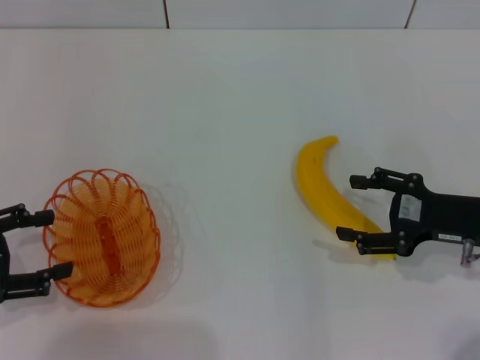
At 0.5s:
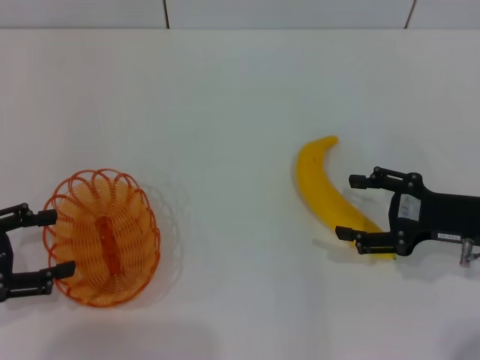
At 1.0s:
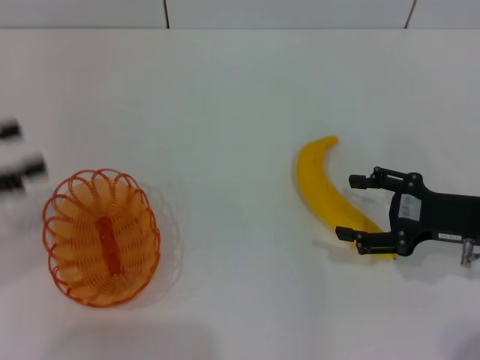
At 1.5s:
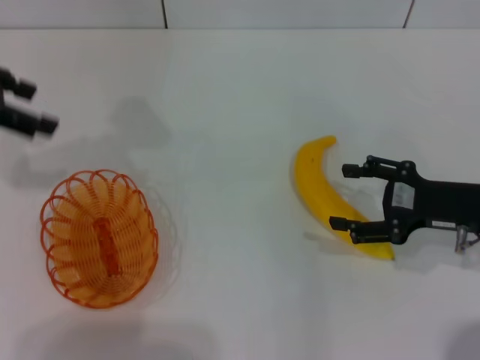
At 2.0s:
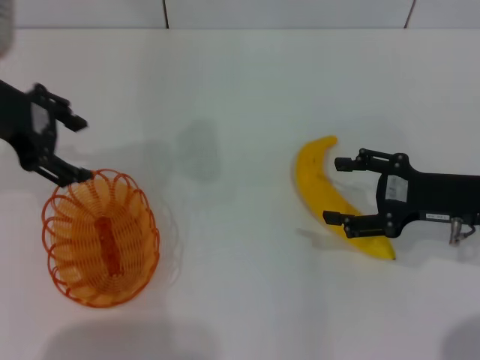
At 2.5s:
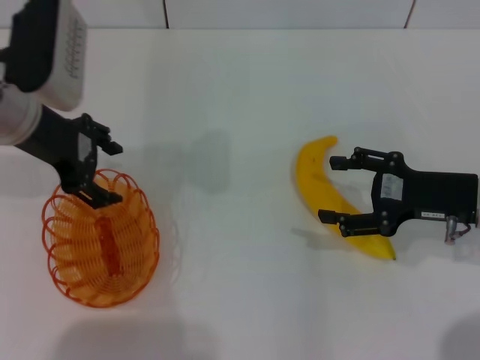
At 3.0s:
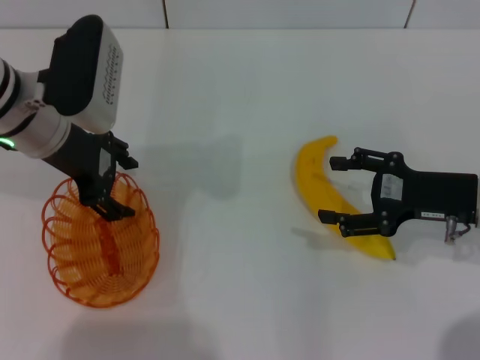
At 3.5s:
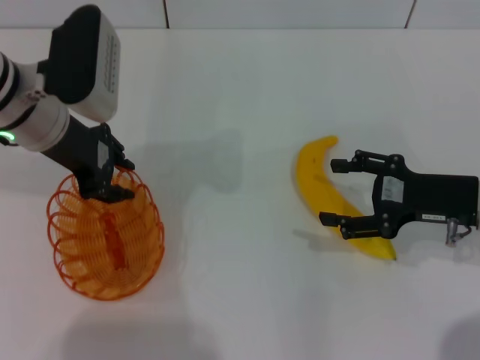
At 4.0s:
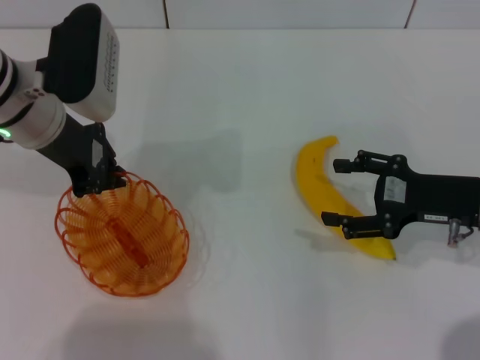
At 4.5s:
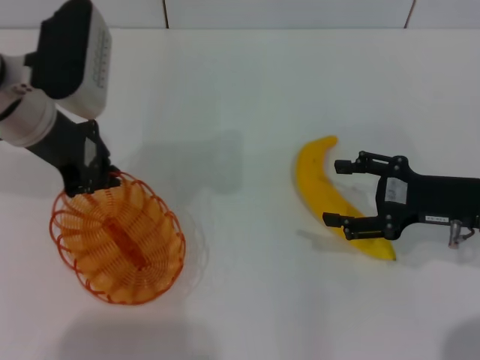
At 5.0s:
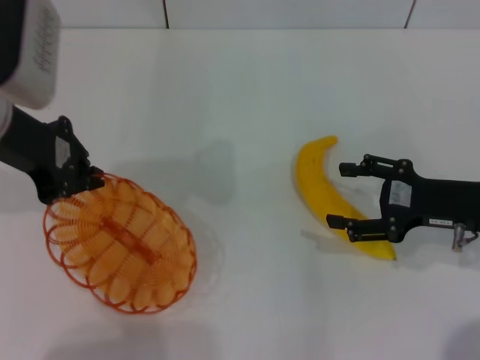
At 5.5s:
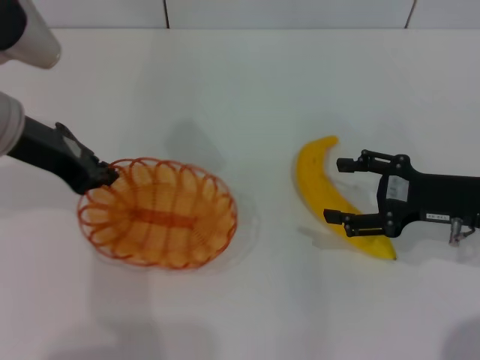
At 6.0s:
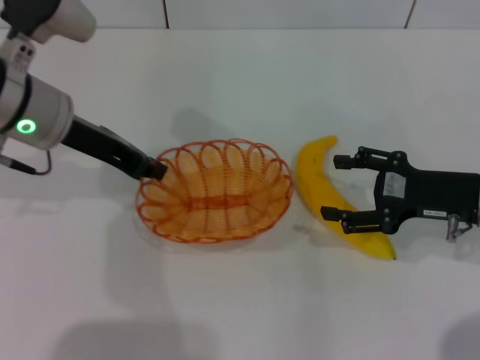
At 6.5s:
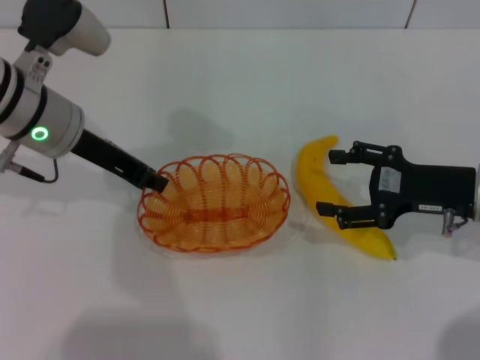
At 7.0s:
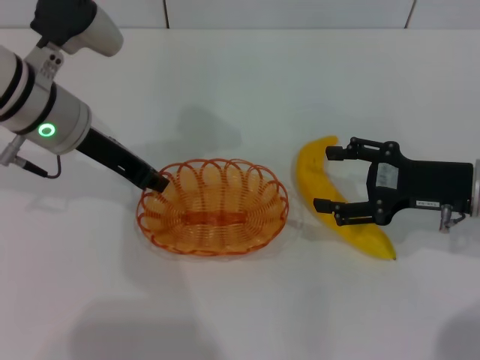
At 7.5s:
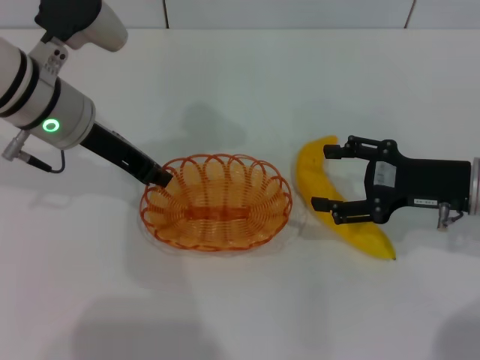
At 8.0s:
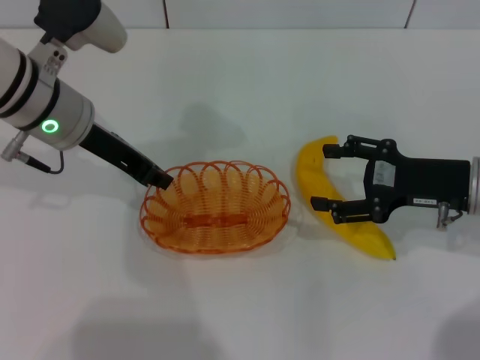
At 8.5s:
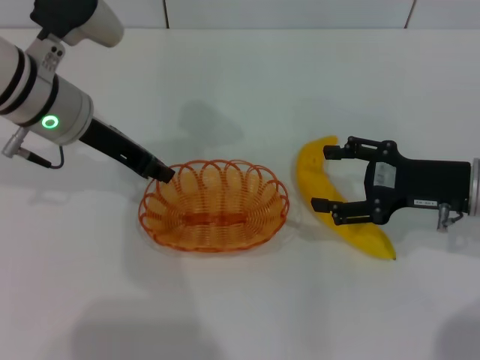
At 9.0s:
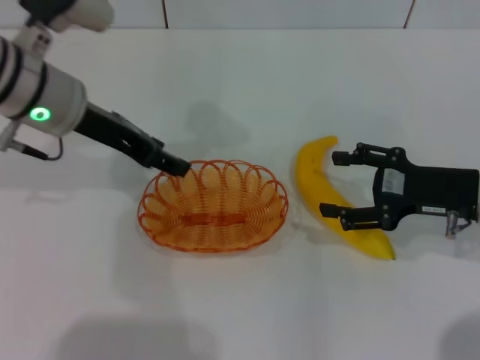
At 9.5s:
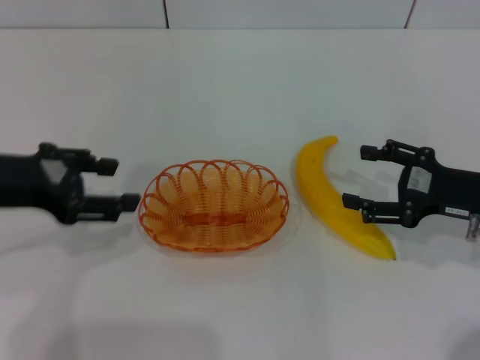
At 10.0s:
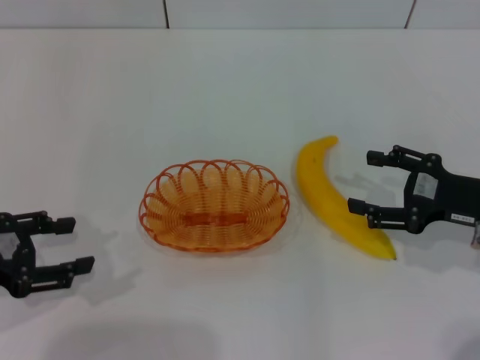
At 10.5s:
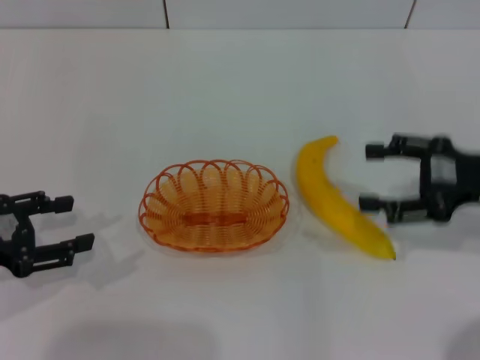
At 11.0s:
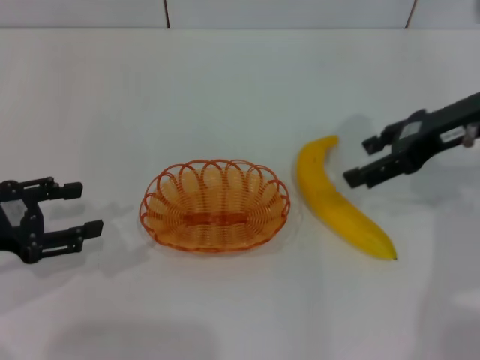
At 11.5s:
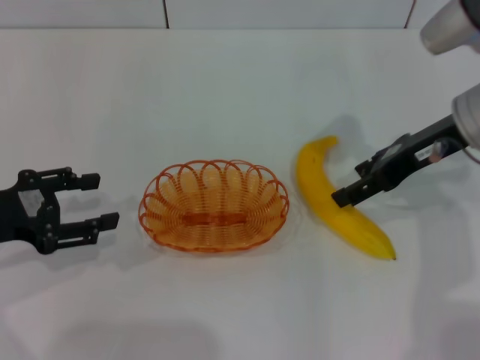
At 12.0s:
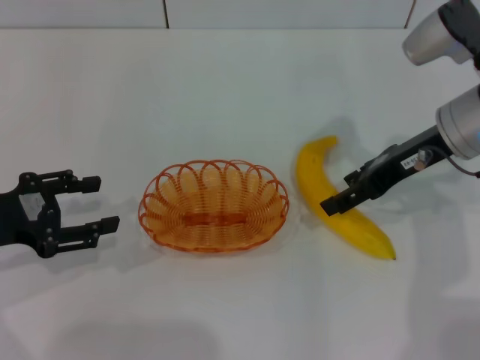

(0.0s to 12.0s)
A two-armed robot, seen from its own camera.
Step, 0.0s - 5.0s: Pick up the basket with the left gripper.
Step, 6.0s - 9.0s: Place the basket in the center of view with the left gripper.
0.0s - 2.0s: The left gripper shifts approximately 20 cm forward, upward and to the right.
2.0s - 4.0s: The left gripper goes about 10 cm downward and to the right, and closes its fingers.
6.0s - 8.0s: The grippers make only small movements.
8.0s - 10.0s: The left gripper moves backward and to the left, approximately 20 cm, and opens up.
10.0s - 12.0s: The right gripper moves forward, upward and to the left, roughly 15 cm.

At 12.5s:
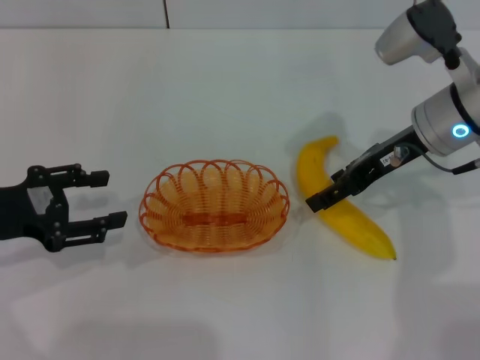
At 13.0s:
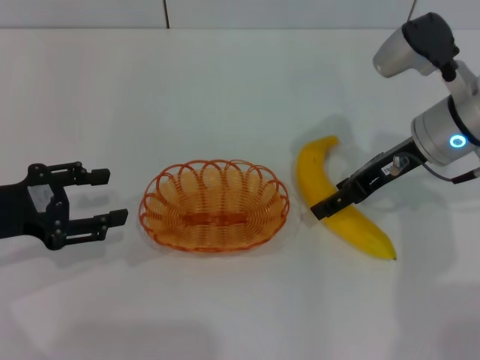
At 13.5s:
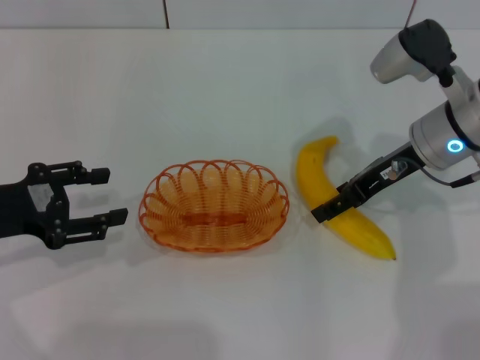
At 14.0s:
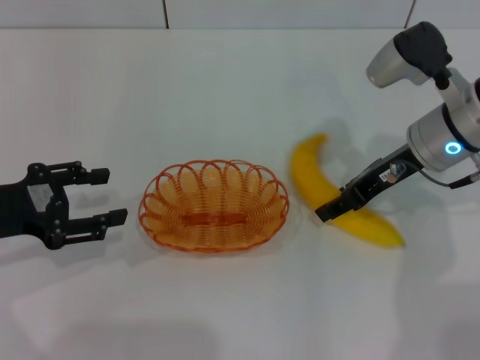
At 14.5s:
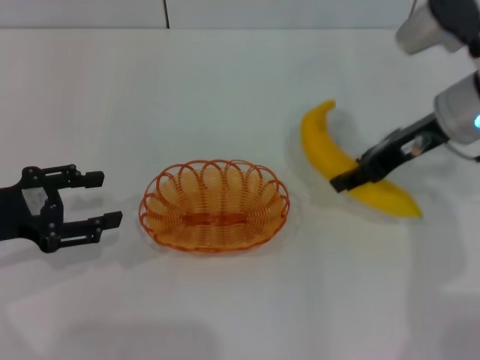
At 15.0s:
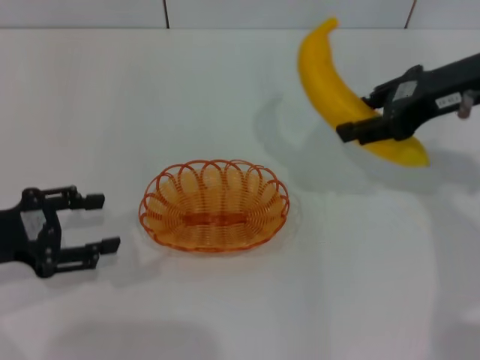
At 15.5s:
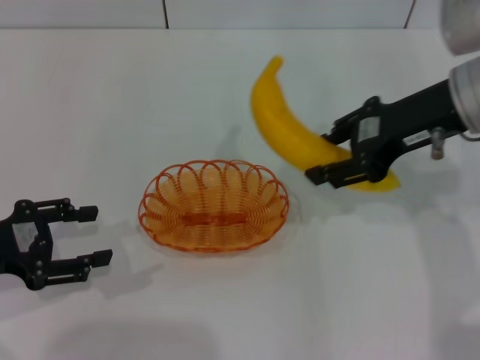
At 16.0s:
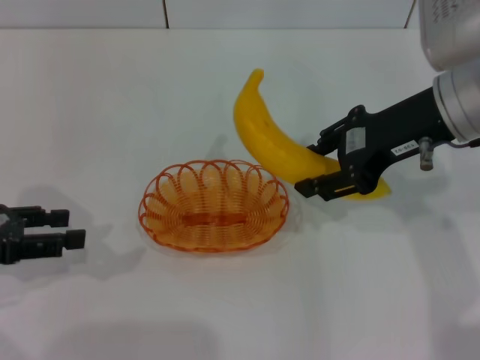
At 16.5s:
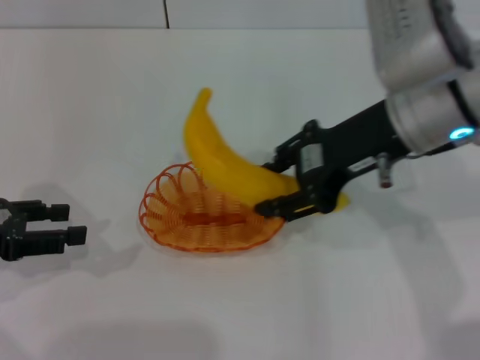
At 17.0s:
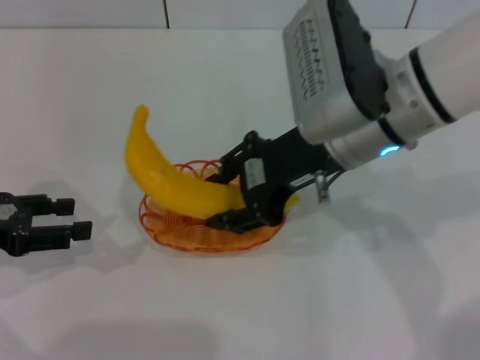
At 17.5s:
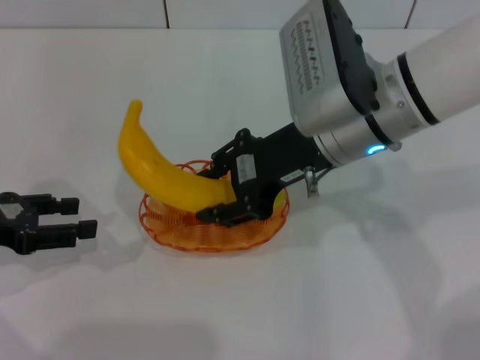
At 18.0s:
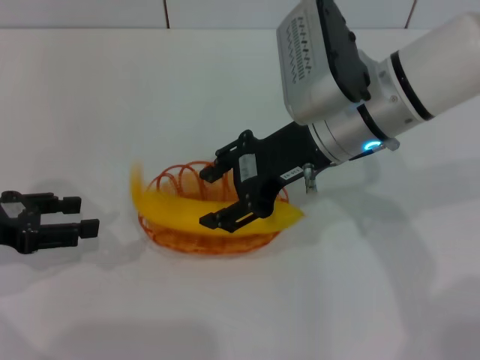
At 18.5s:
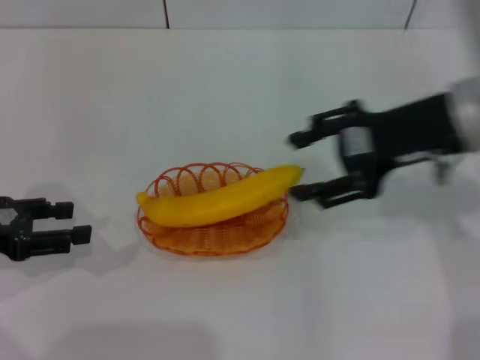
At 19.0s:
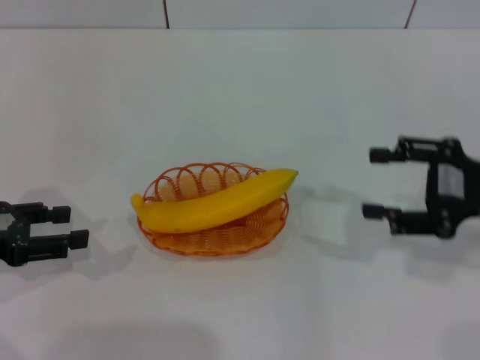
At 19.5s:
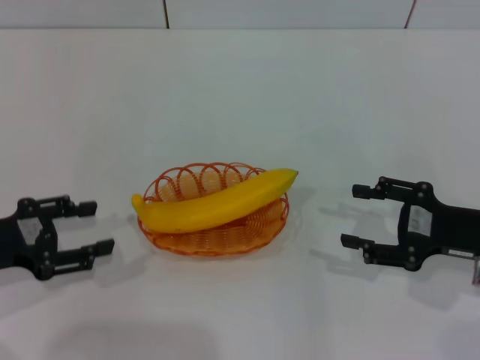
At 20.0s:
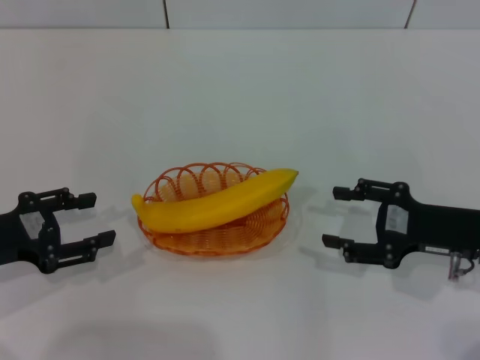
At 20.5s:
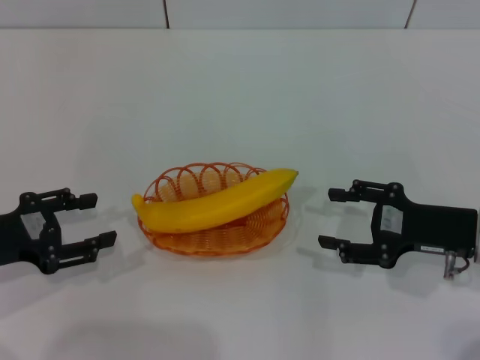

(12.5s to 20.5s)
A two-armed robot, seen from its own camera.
Step, 12.5s - 14.5s: Pick up the banana with the right gripper.
Step, 15.0s - 18.0s: Place the banana into the basket with the right gripper.
12.5s - 14.5s: The right gripper closes up.
14.5s - 16.5s: The right gripper moves to the left and upward, roughly 10 cm.
16.5s - 18.5s: The right gripper opens its fingers.
18.5s - 20.5s: The right gripper shifts approximately 15 cm downward and to the right.

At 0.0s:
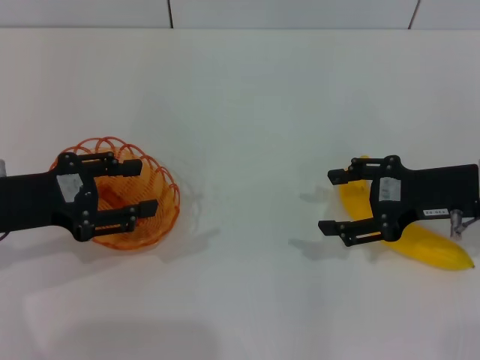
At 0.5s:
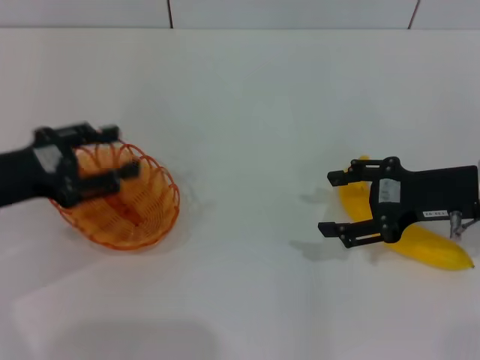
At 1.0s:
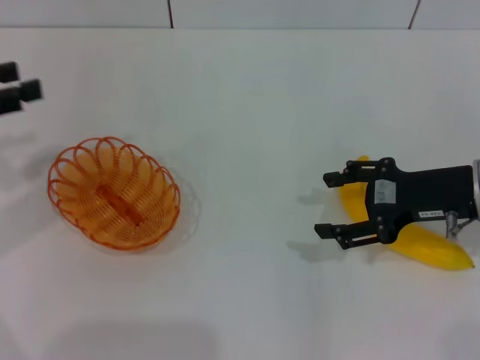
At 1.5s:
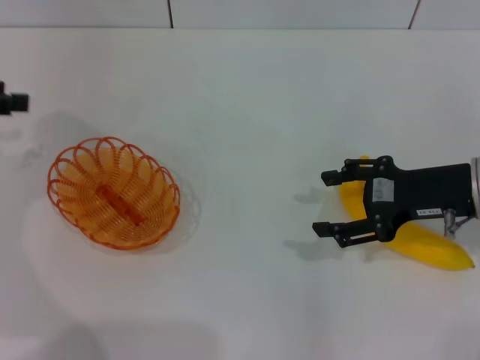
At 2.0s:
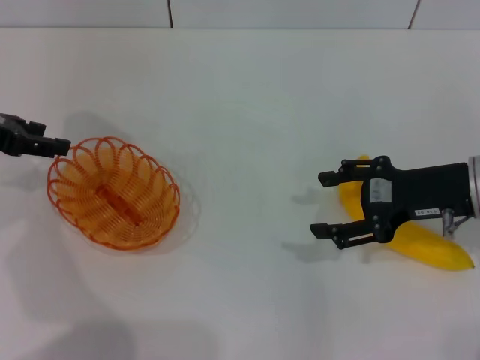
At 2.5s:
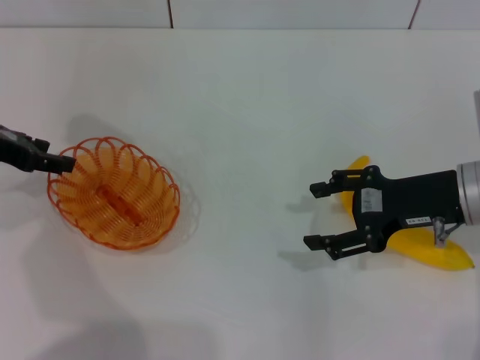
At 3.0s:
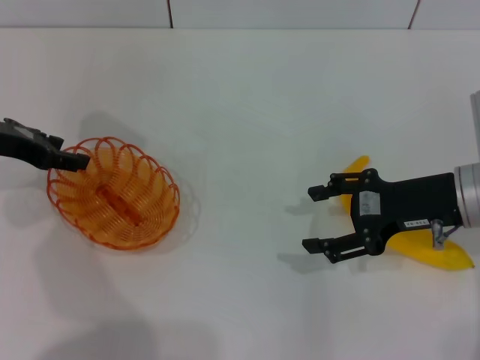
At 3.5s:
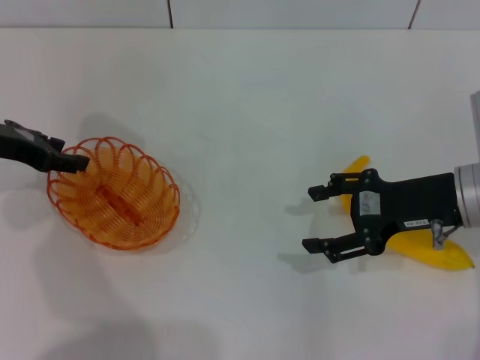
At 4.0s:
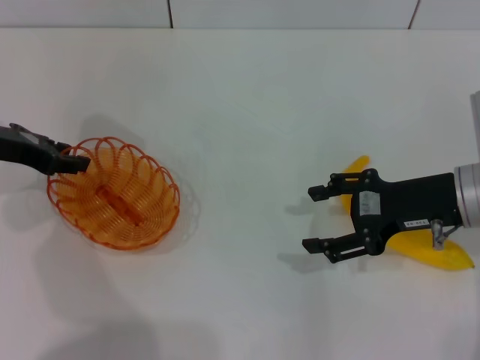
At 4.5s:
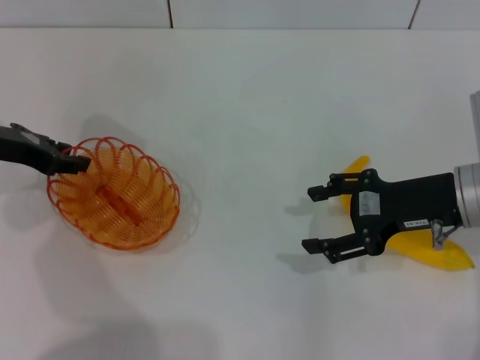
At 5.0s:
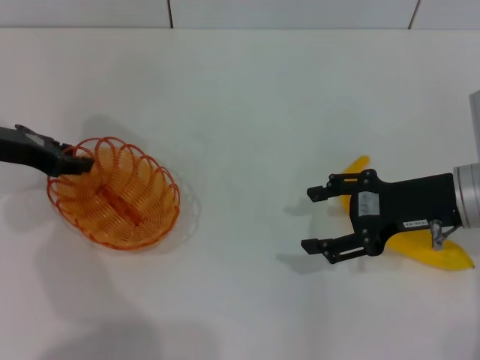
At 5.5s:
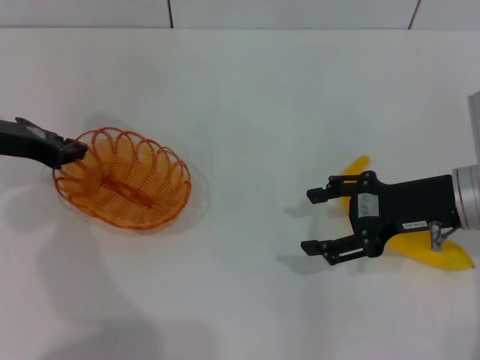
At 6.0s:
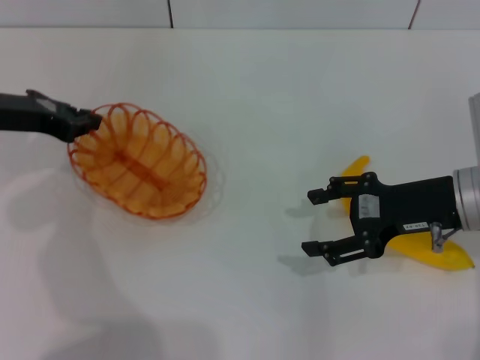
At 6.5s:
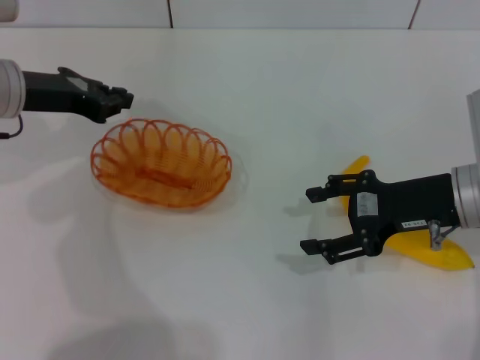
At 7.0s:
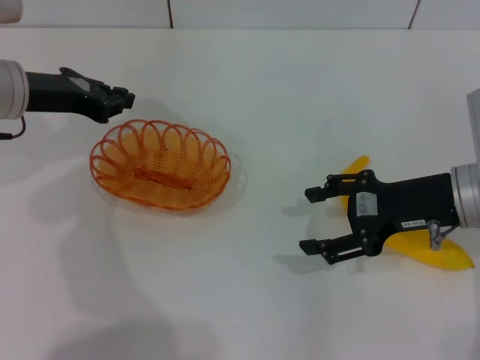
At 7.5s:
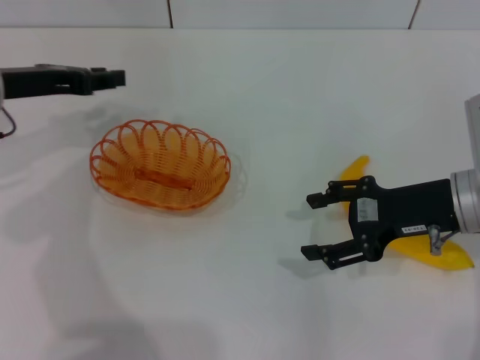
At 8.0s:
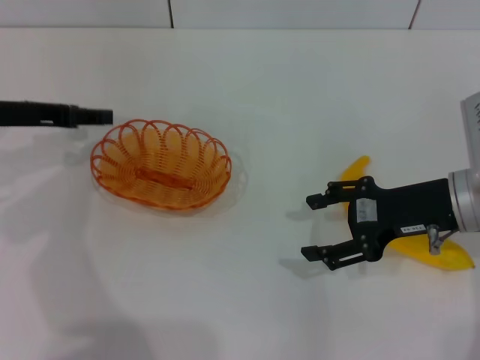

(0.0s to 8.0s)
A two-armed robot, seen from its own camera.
Step, 0.0s - 6.0s: Pick up the basket with the left gripper.
0.0s - 2.0s: The left gripper moves forward and to the left, roughly 10 cm.
2.0s - 4.0s: The grippers move only a little.
4.0s - 6.0s: The left gripper closes.
6.0s - 8.0s: The left gripper opens its fingers.
